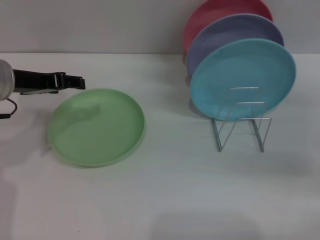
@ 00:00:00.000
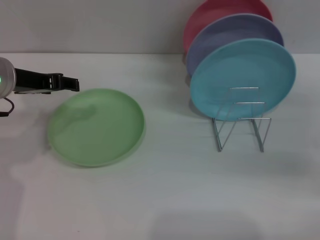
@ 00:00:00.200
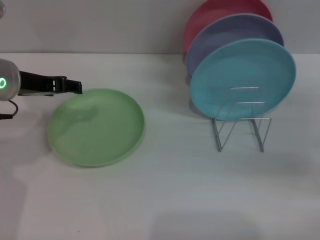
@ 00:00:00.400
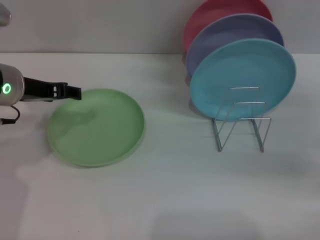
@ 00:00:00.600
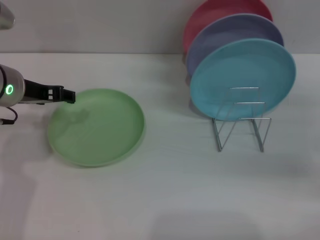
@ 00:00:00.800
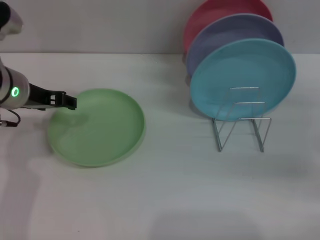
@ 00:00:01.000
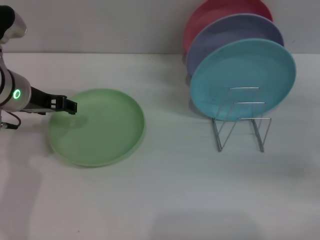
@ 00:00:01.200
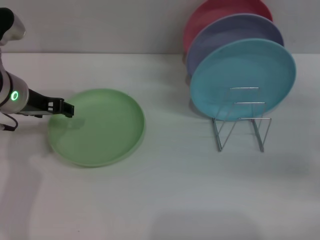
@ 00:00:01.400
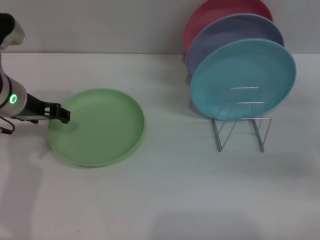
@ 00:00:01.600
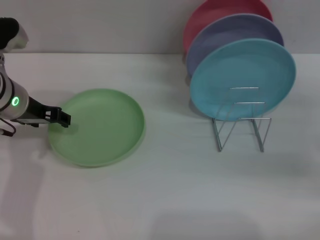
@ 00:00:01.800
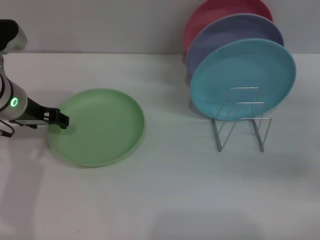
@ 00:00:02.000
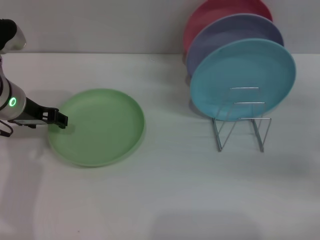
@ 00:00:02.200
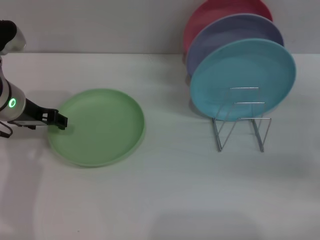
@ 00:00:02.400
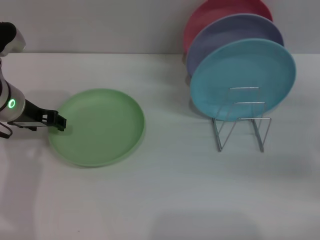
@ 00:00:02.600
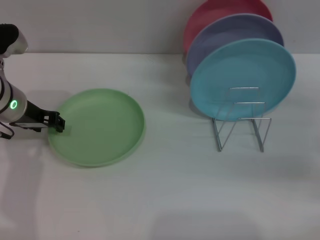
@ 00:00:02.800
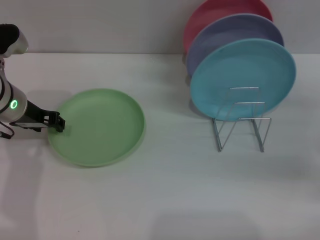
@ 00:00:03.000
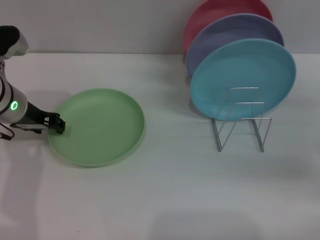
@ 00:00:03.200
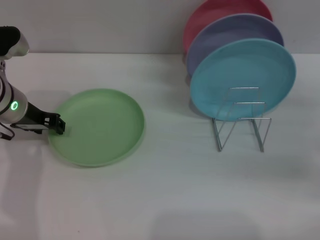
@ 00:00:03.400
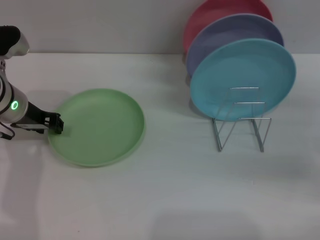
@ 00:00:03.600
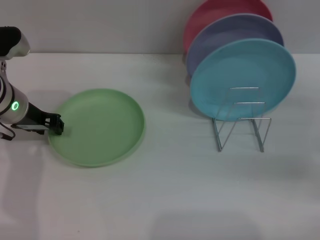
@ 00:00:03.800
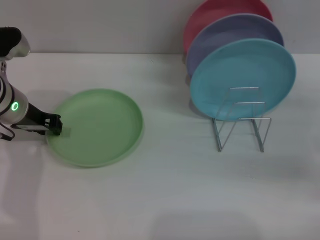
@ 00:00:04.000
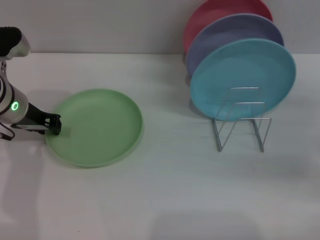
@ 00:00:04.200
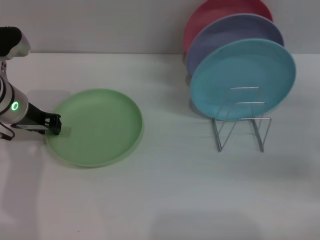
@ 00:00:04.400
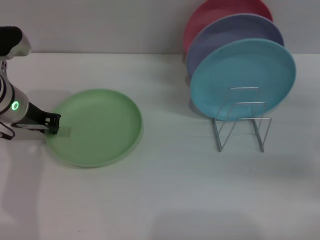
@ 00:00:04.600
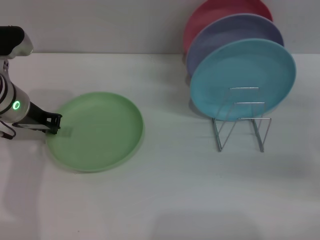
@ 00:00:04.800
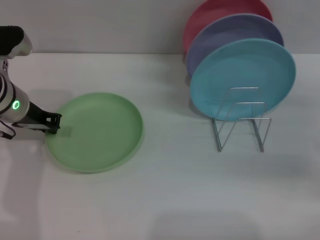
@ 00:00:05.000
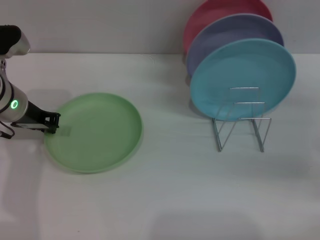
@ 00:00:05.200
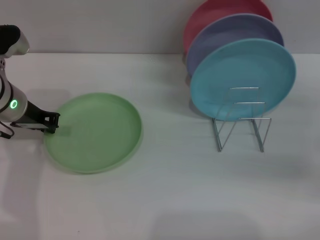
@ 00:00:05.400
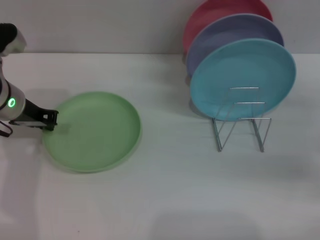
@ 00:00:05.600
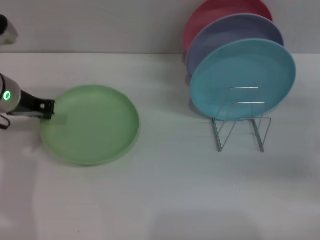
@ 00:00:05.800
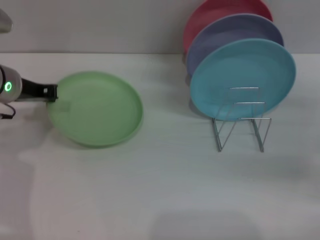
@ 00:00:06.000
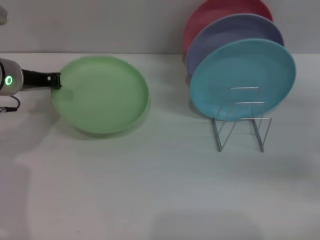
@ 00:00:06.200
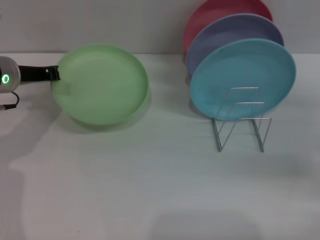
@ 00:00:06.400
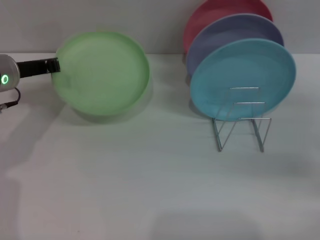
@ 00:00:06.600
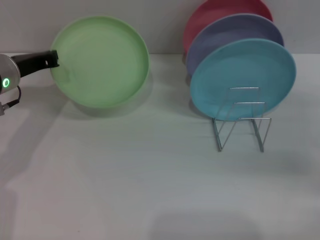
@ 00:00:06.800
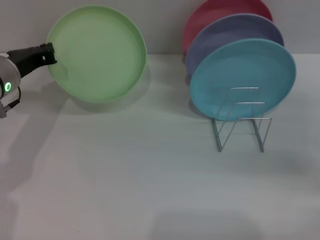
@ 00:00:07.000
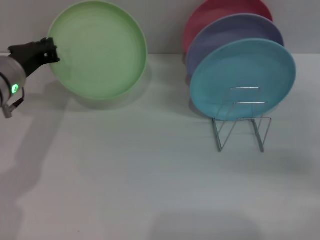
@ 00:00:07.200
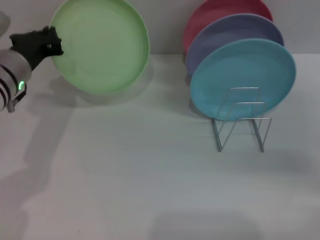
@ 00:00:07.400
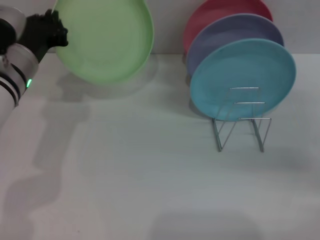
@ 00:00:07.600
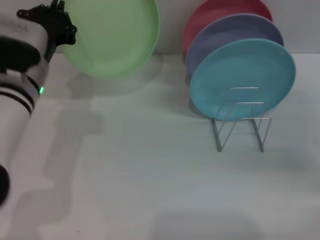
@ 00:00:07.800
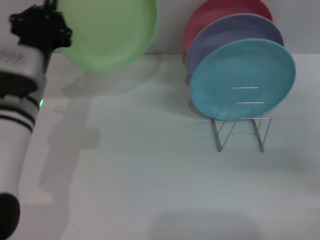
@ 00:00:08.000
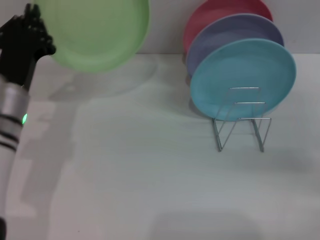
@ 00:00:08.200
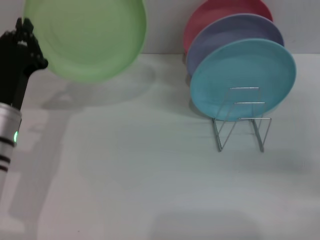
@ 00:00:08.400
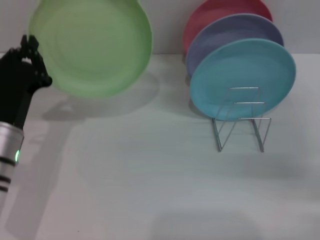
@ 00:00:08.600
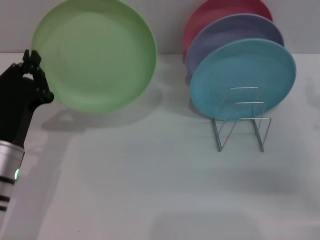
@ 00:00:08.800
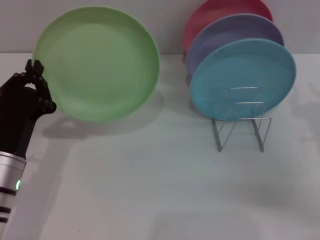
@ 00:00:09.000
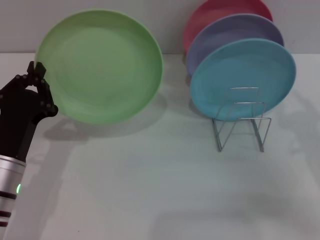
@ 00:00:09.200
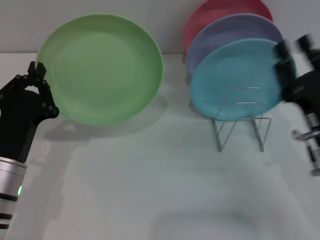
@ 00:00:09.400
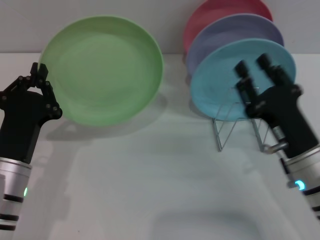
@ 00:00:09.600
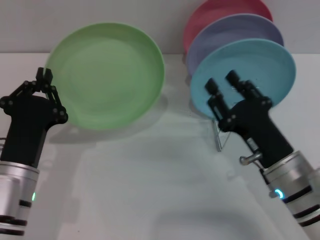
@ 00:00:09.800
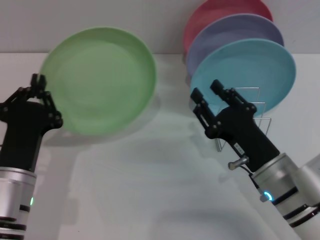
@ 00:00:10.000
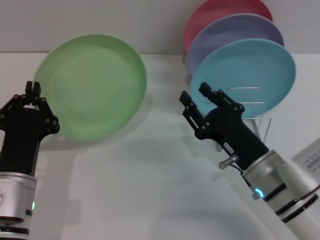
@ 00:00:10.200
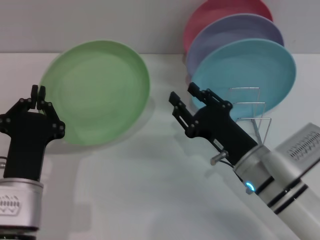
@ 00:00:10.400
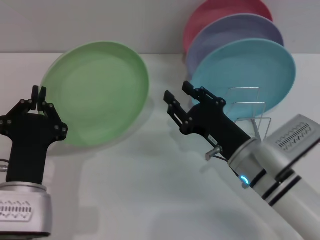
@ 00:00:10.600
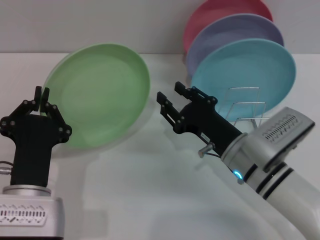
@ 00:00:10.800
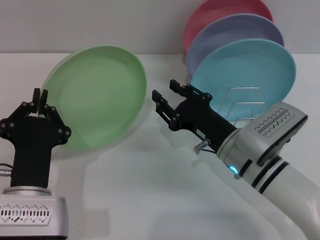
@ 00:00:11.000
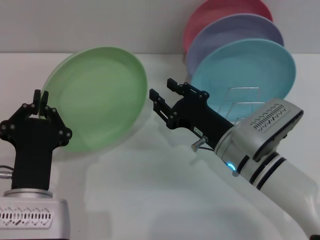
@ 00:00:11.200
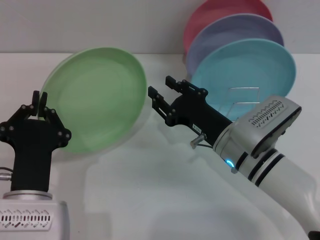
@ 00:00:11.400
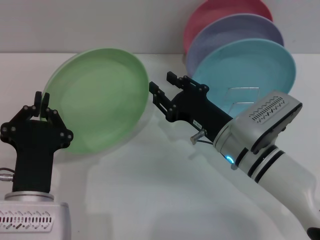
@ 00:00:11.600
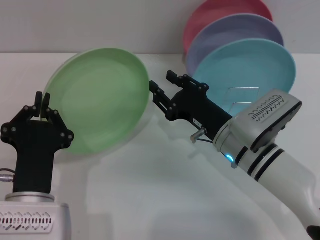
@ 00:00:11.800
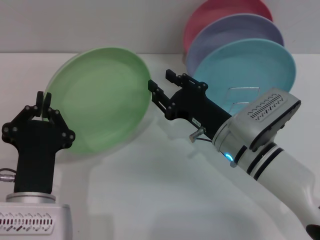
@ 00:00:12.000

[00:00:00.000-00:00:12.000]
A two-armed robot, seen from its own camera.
Task of the whole recording: Grip the plate with one hand, pass it to the other, then set it on the shelf.
Step, 00:00:00.000 to 00:00:07.000: Pick up the plate with the left gripper.
00:00:01.600 to 00:00:03.000: The grippers stay close to where they were, moving slightly.
00:00:03.000 to 00:00:04.400: The two grippers keep their place.
00:00:04.400 to 00:00:06.000: The grippers stay close to where they were, moving slightly.
00:00:06.000 to 00:00:07.600: The left gripper moves about 5 cm.
00:00:07.600 to 00:00:09.000: The right gripper shifts some 5 cm to the left, while the left gripper heads backward and downward, covering roughly 15 cm.
00:00:09.000 to 00:00:10.400: The right gripper is displaced to the left by roughly 15 cm. The left gripper moves approximately 5 cm.
00:00:10.400 to 00:00:12.000: The right gripper shifts by approximately 5 cm.

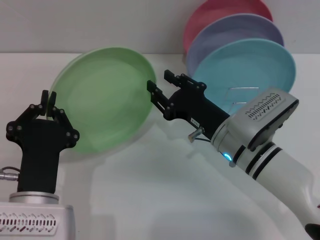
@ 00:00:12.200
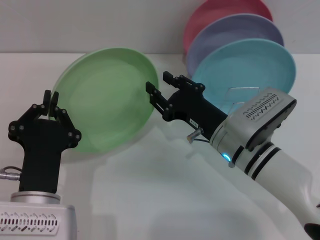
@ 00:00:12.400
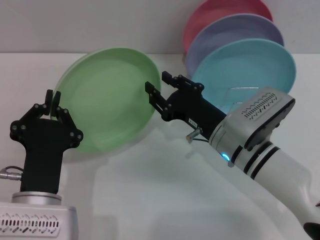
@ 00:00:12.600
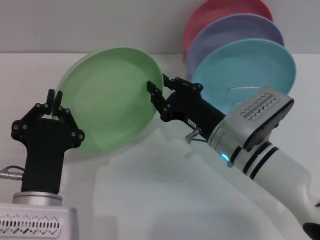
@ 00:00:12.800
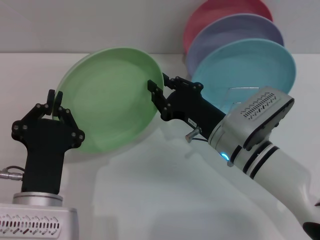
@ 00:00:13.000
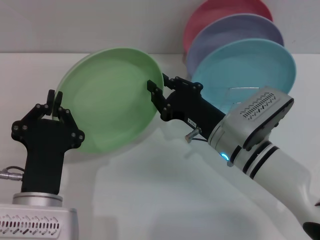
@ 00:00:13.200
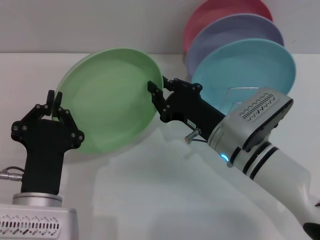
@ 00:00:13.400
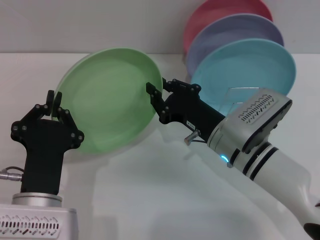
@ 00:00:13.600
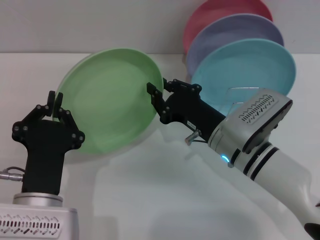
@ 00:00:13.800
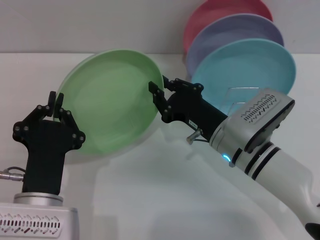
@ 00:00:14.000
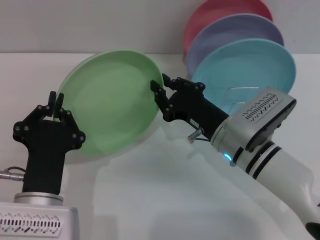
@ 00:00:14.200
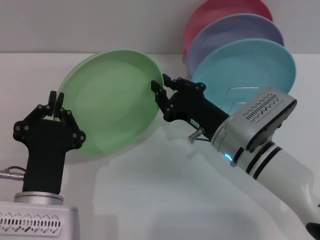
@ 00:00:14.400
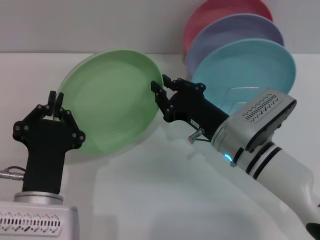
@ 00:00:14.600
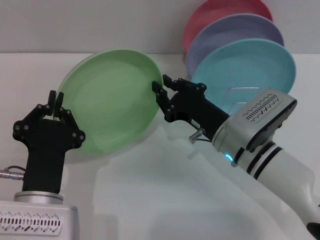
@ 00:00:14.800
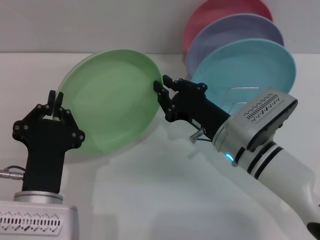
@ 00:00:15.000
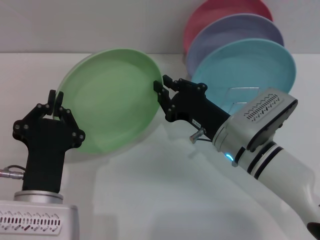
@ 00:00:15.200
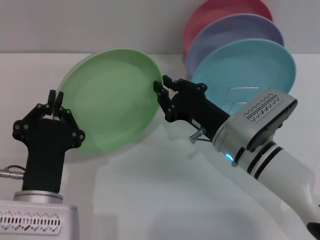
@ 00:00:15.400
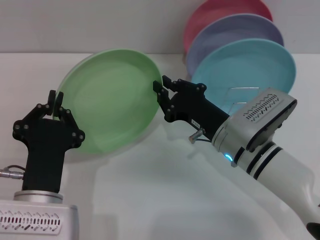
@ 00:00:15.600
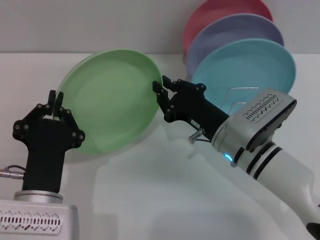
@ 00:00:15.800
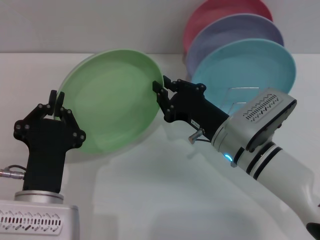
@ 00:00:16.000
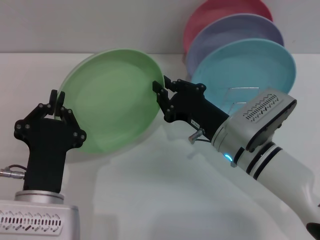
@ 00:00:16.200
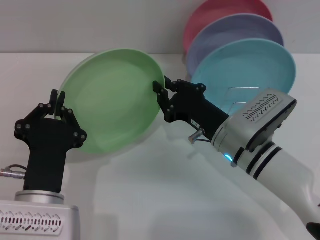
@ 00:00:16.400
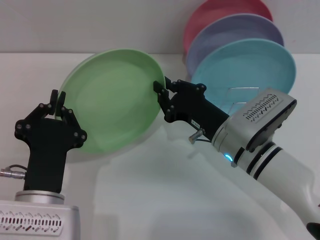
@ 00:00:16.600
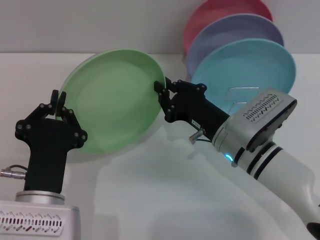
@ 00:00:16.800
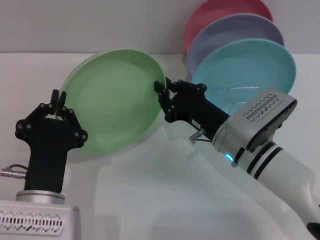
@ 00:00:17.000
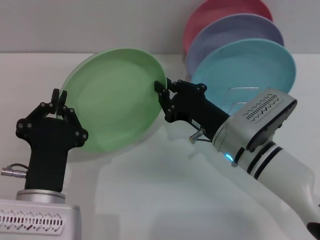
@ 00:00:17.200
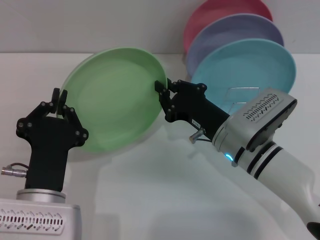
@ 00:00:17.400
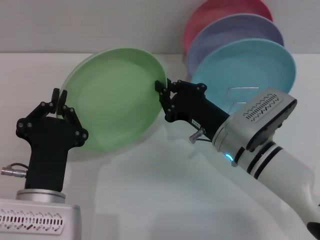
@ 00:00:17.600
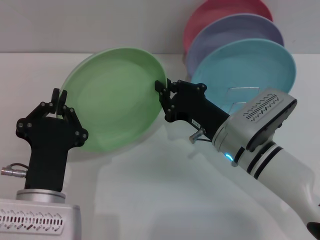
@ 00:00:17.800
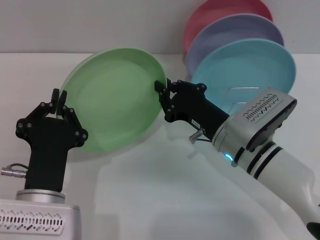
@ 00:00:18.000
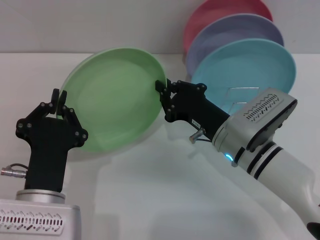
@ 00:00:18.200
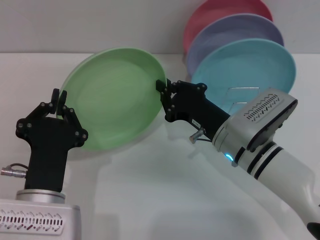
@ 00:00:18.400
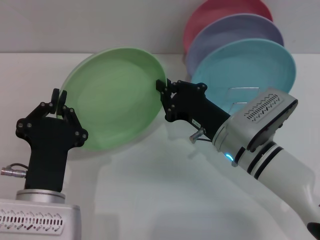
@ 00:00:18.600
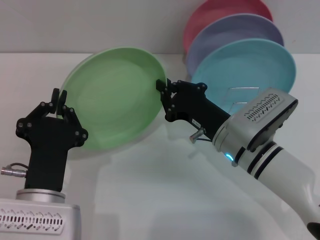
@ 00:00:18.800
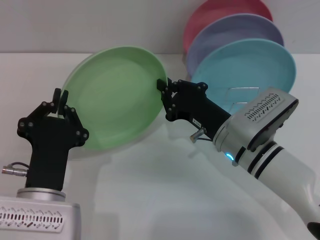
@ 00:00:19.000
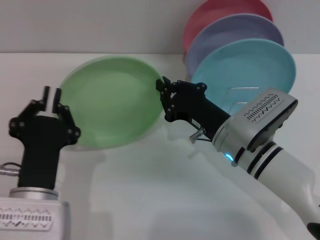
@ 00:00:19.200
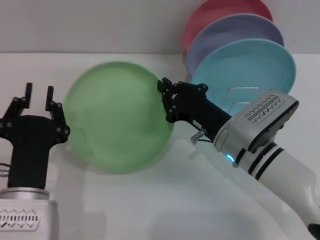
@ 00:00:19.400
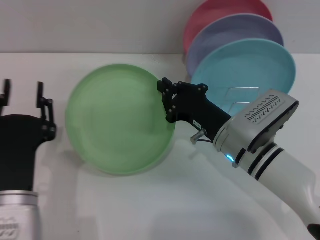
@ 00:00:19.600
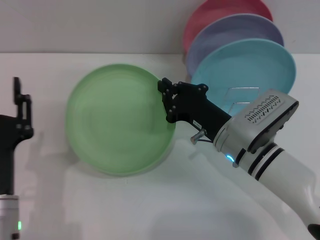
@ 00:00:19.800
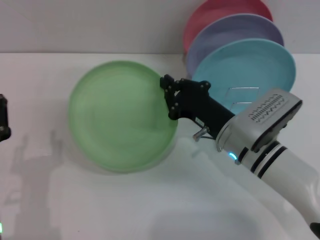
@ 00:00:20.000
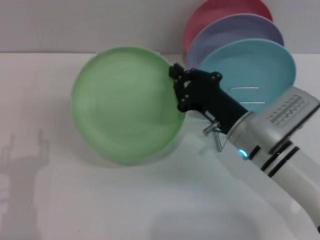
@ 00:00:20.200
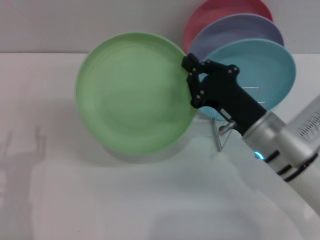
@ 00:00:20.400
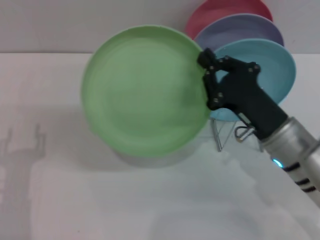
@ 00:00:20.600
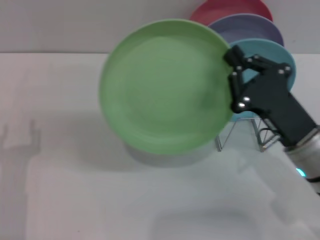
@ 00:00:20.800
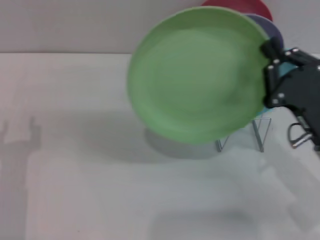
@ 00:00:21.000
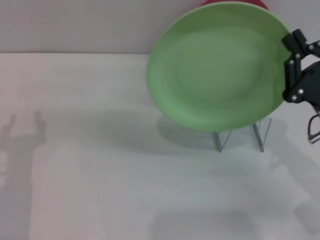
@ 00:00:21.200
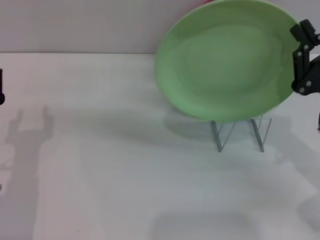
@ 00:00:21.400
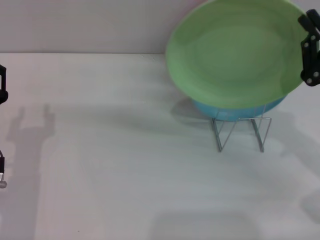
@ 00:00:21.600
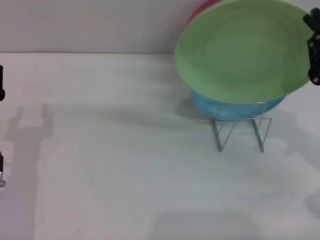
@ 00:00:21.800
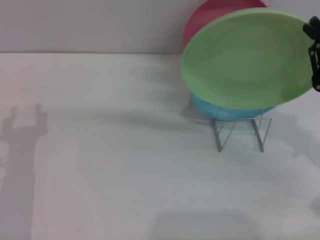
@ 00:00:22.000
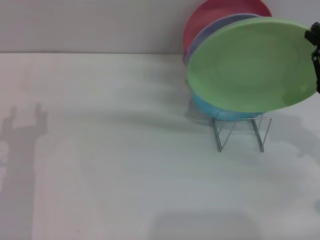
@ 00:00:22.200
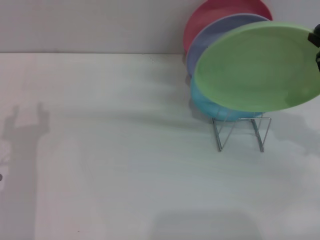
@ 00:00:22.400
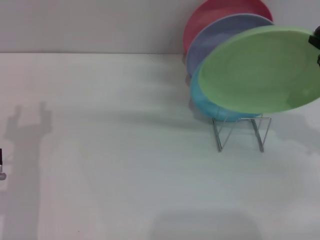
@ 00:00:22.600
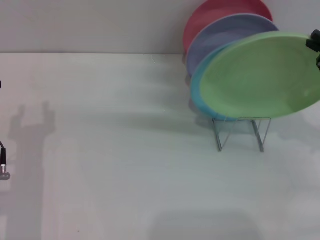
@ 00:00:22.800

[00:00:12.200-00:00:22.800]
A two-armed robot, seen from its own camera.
Task of the whole recording: Grip the plate with one hand, pass it to the other, then set it on the shelf.
Step, 00:00:12.200 to 00:00:20.200: Pass the plate from the left gripper to the right gripper.
00:00:12.200 to 00:00:13.800: The right gripper closes.
00:00:13.800 to 00:00:18.200: Both grippers stay about where they are.
00:00:18.200 to 00:00:19.800: The left gripper opens its fingers.
00:00:19.800 to 00:00:21.200: The left gripper heads to the left, covering roughly 5 cm, while the right gripper shifts approximately 15 cm to the right and backward.
00:00:21.200 to 00:00:22.800: The right gripper travels to the right by some 10 cm.
